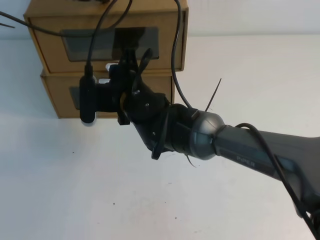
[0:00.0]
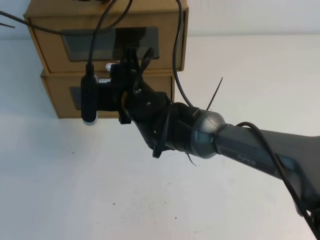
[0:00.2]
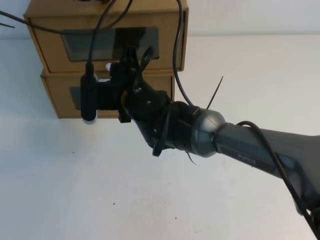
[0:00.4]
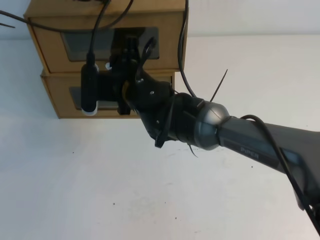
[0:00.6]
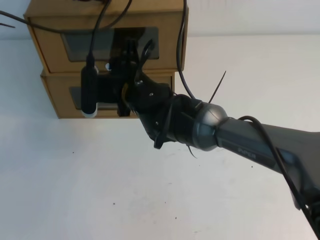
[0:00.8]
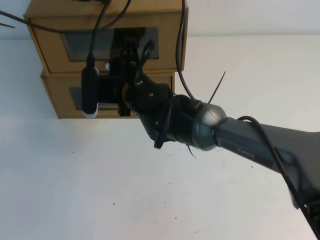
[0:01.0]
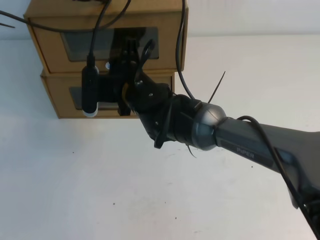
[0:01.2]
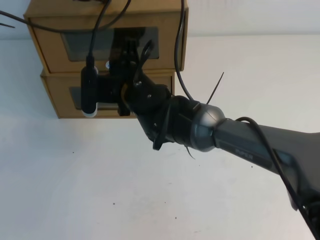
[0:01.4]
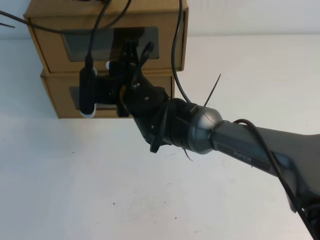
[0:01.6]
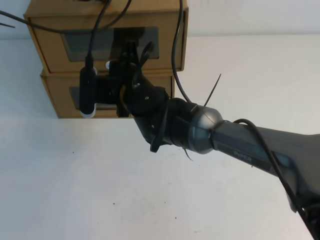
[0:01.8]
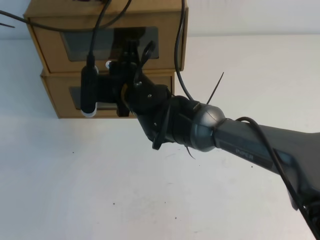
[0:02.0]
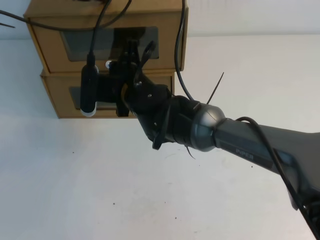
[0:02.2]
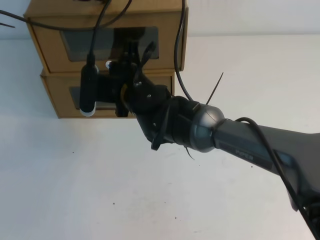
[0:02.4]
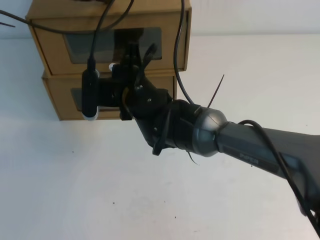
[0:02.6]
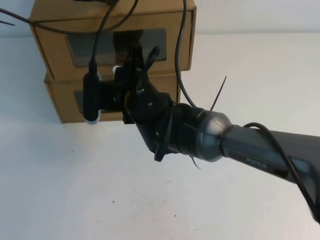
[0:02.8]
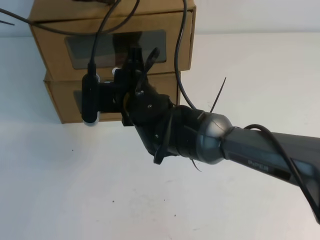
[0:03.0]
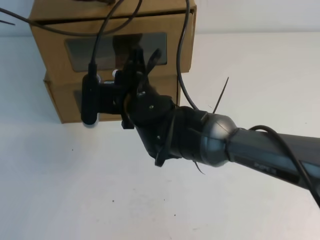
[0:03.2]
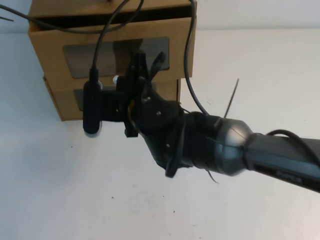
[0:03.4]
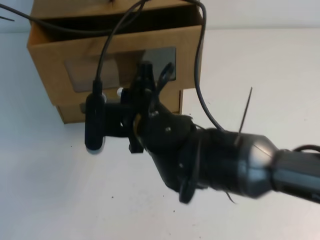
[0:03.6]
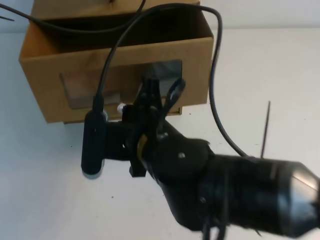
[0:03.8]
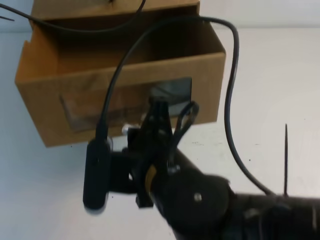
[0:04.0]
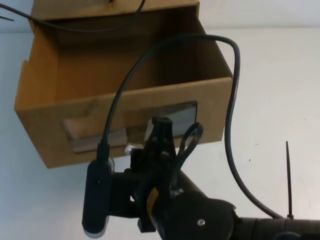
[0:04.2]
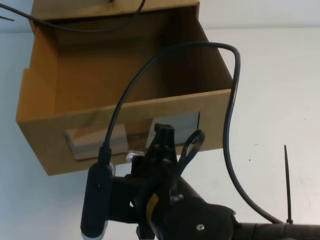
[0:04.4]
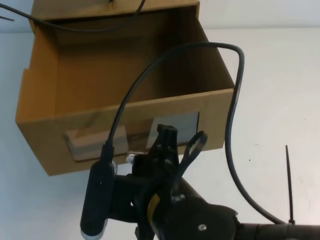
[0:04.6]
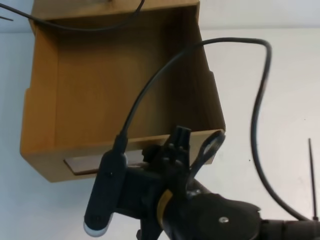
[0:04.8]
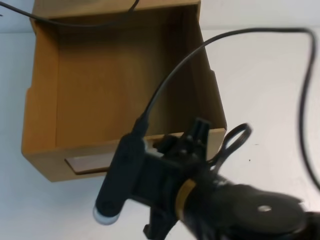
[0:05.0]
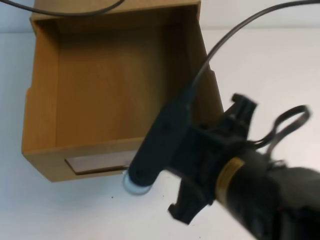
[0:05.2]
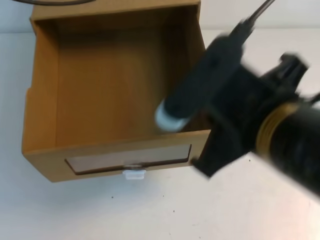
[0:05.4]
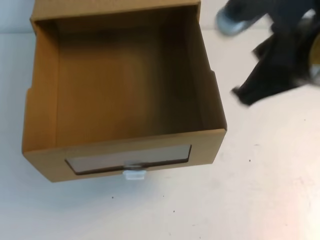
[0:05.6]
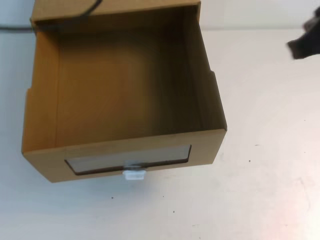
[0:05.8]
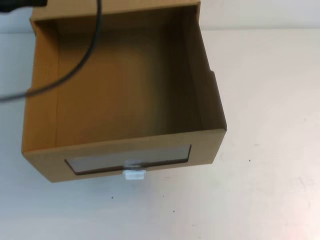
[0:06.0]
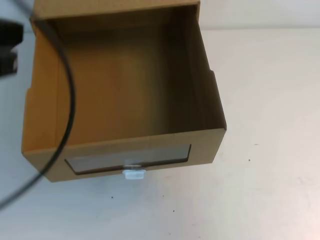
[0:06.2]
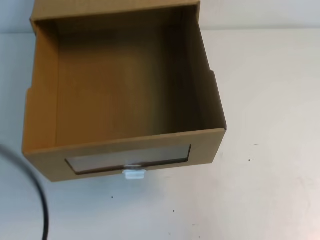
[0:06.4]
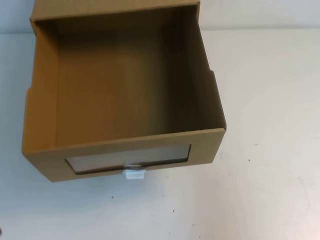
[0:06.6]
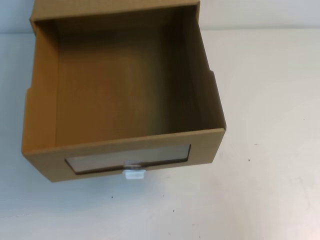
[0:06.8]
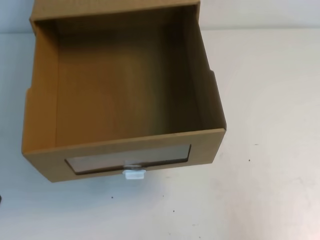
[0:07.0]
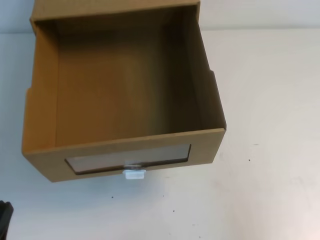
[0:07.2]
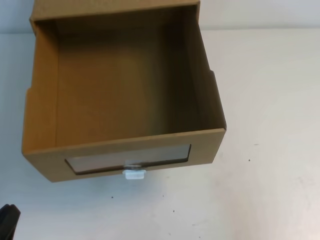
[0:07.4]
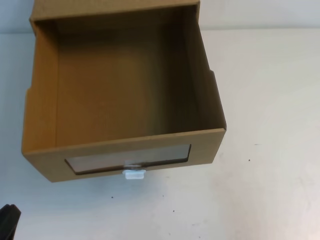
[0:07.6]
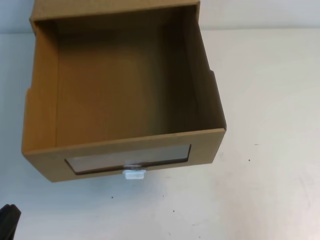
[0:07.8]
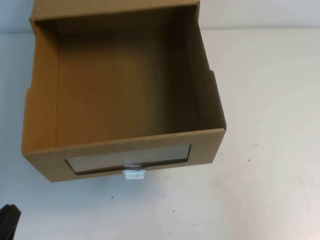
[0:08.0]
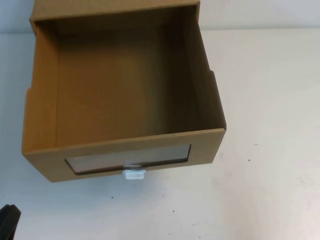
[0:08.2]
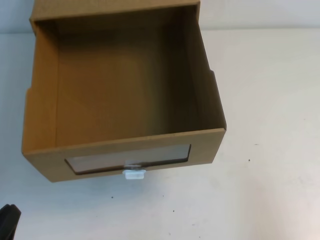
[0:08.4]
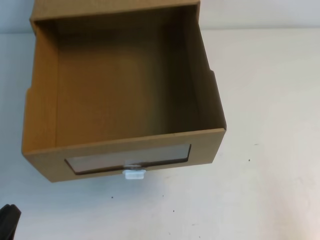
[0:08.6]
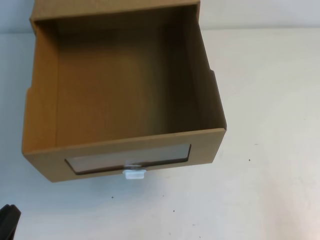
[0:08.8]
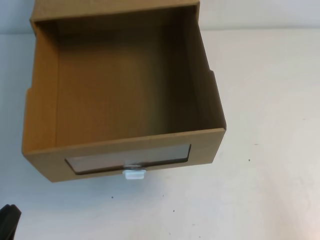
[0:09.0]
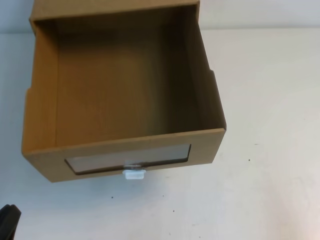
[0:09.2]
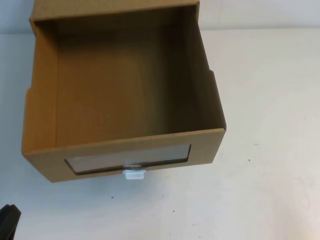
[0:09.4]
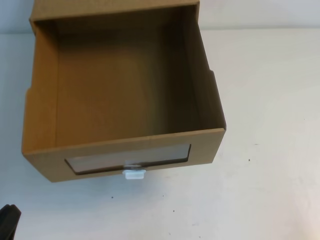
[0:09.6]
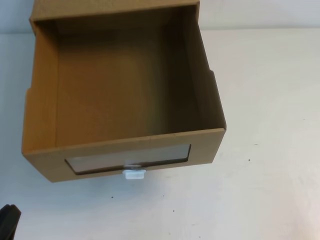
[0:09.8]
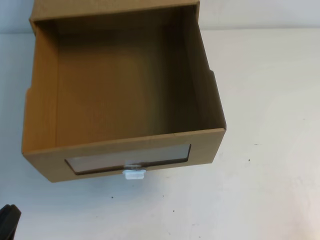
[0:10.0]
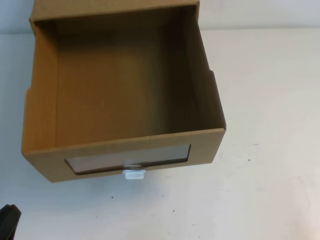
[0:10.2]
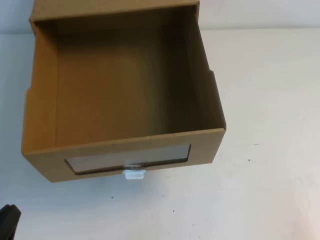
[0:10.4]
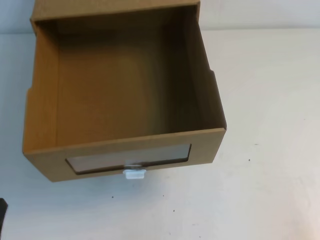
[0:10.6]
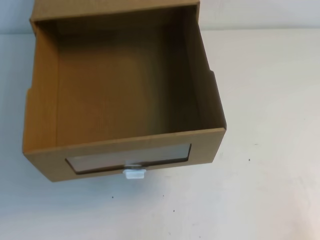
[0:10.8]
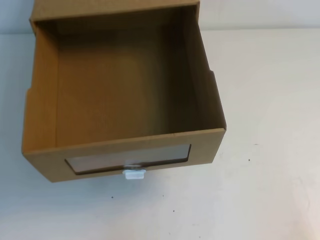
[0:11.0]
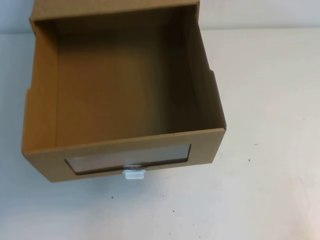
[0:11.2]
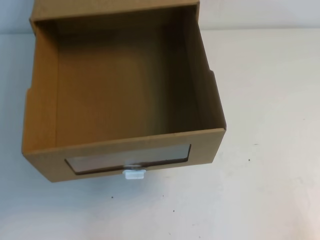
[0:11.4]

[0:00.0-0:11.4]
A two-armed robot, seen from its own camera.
Task of the whole recording: open the shoebox on the table.
Step, 0:00.0 to 0:11.4: Open the shoe box.
0:00.0 to 0:01.4: The right gripper closes up.
0:01.4 to 0:02.8: The grippers make only small movements.
0:02.8 to 0:04.2: The right gripper is displaced backward by some 20 cm.
0:04.2 to 0:05.6: The right gripper is displaced to the right and upward by about 20 cm, and opens, then closes once more, while the left gripper is displaced backward and upward by some 15 cm.
0:05.6 to 0:07.2: The right gripper moves to the right, downward and backward, about 20 cm. Meanwhile the left gripper travels downward and backward by some 40 cm.
0:07.2 to 0:08.6: The right gripper shifts some 10 cm downward.

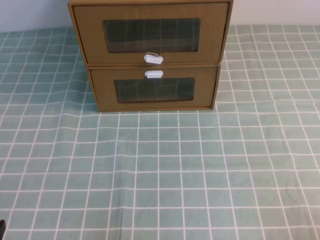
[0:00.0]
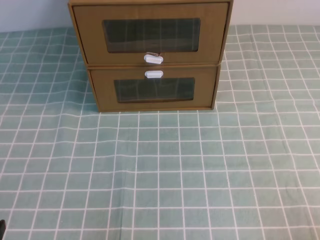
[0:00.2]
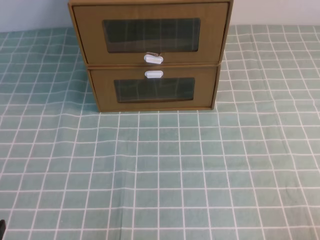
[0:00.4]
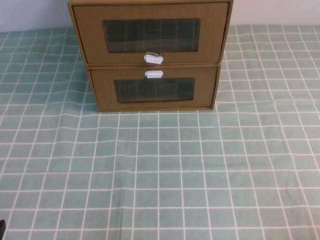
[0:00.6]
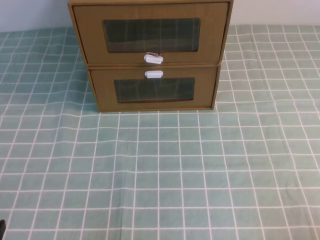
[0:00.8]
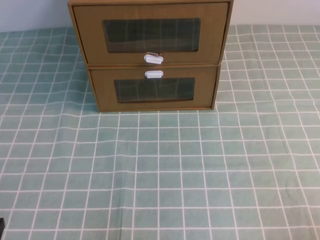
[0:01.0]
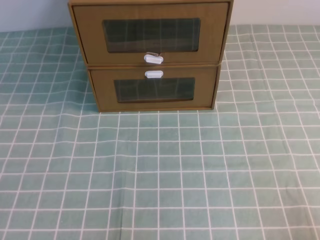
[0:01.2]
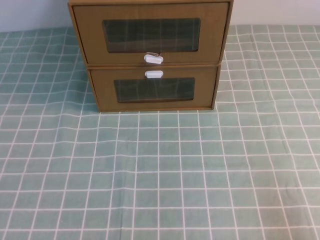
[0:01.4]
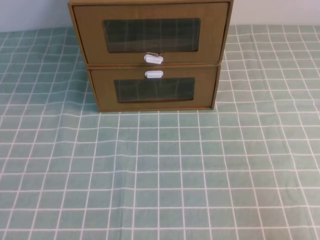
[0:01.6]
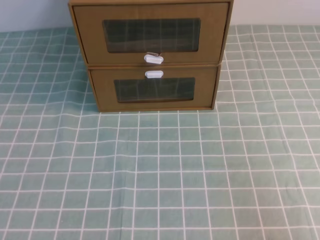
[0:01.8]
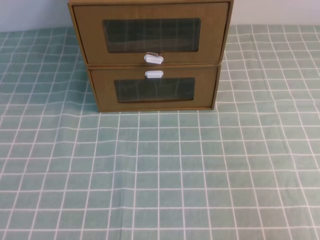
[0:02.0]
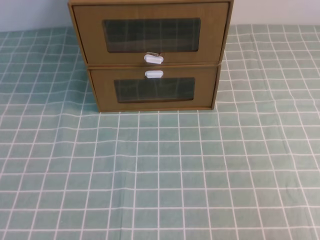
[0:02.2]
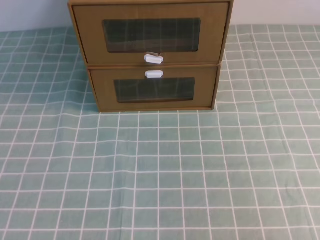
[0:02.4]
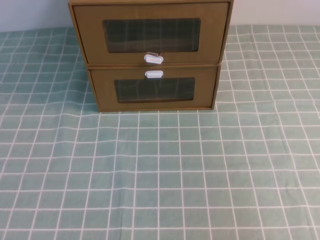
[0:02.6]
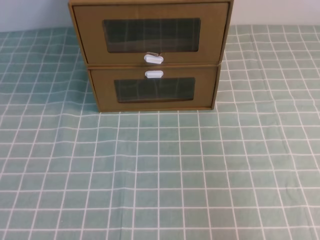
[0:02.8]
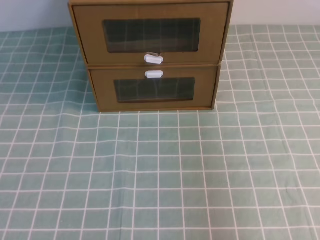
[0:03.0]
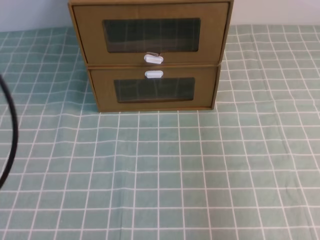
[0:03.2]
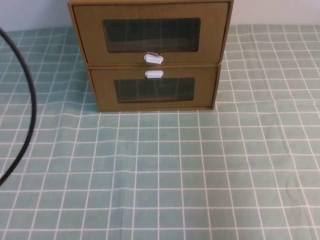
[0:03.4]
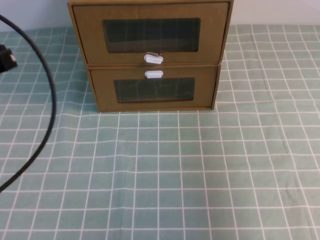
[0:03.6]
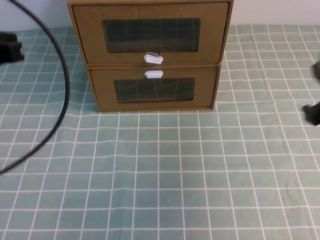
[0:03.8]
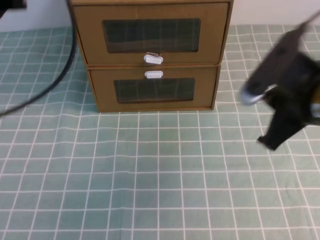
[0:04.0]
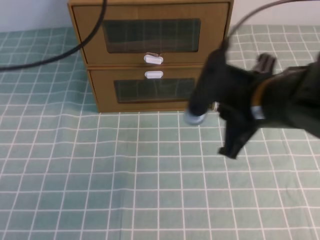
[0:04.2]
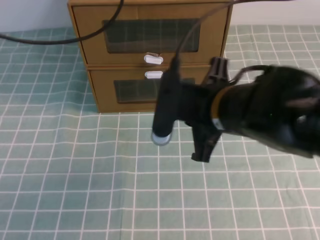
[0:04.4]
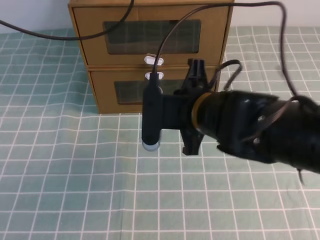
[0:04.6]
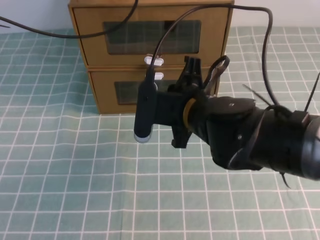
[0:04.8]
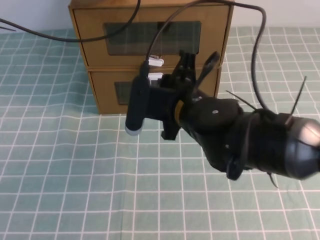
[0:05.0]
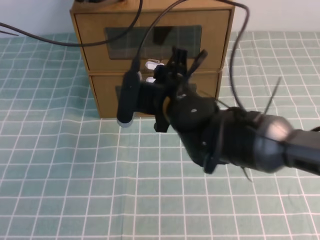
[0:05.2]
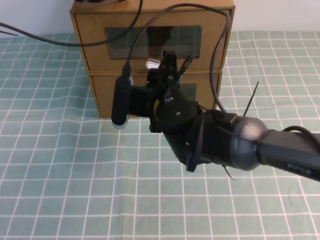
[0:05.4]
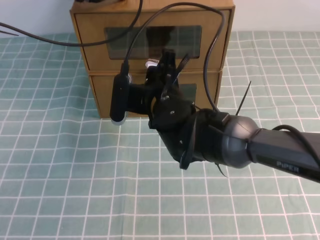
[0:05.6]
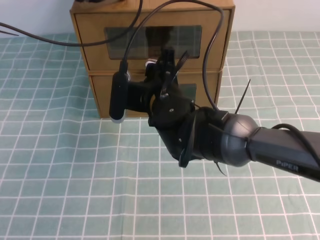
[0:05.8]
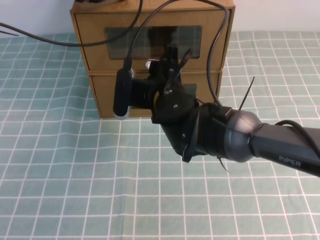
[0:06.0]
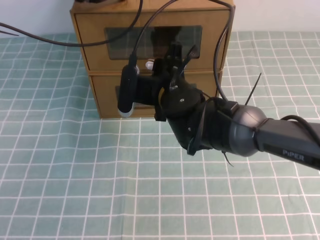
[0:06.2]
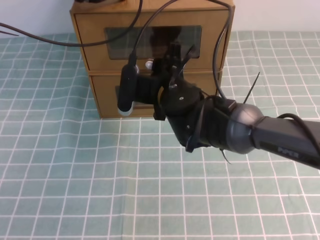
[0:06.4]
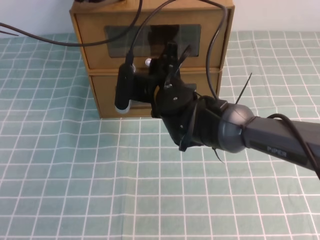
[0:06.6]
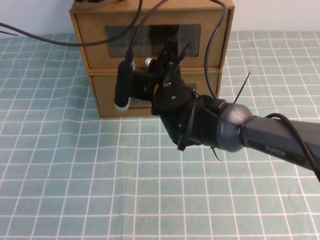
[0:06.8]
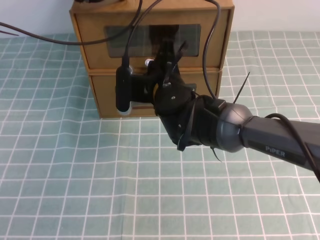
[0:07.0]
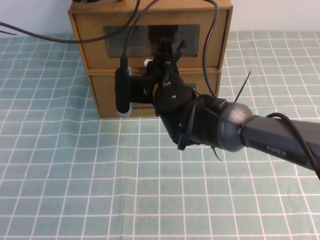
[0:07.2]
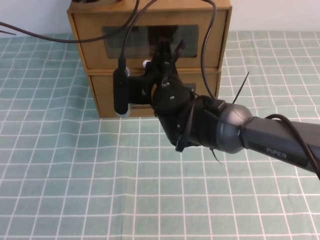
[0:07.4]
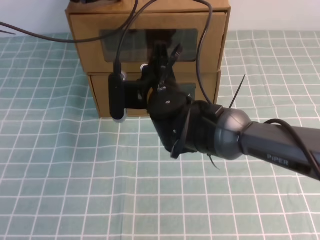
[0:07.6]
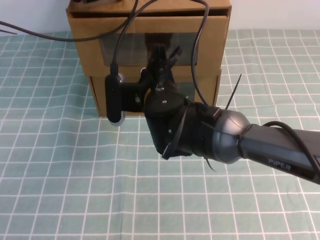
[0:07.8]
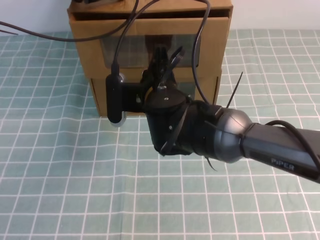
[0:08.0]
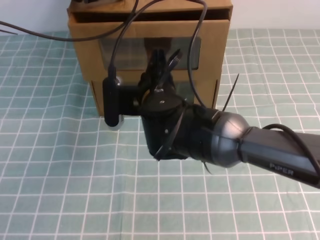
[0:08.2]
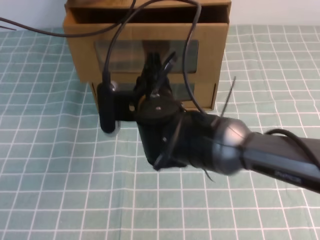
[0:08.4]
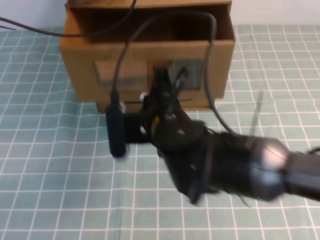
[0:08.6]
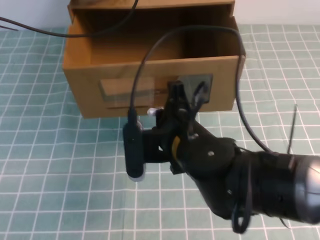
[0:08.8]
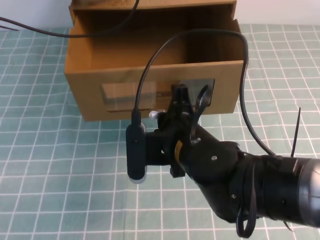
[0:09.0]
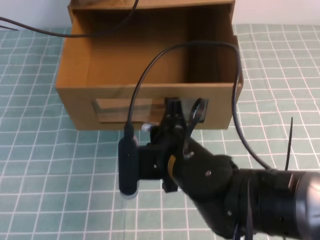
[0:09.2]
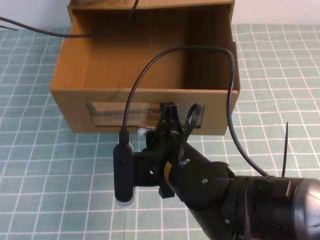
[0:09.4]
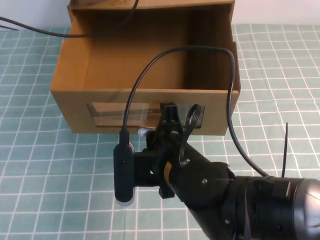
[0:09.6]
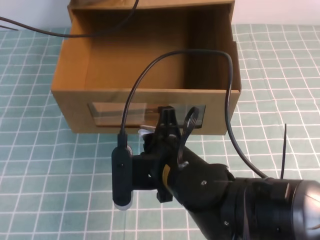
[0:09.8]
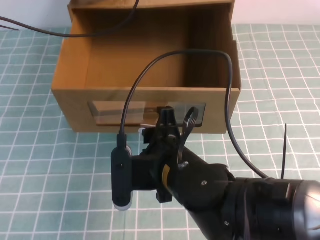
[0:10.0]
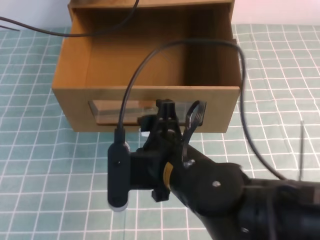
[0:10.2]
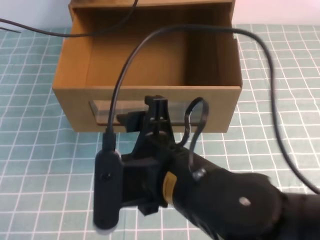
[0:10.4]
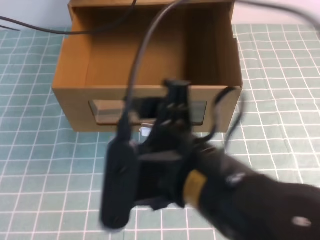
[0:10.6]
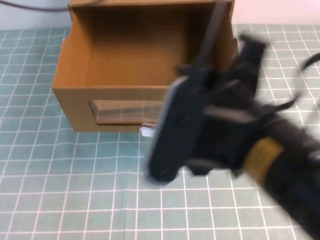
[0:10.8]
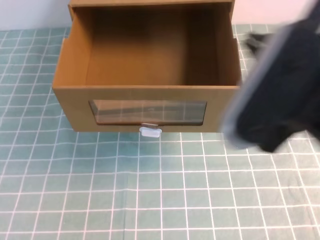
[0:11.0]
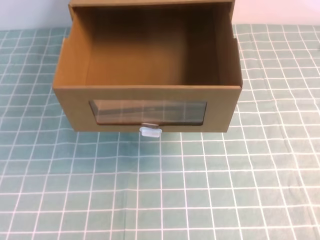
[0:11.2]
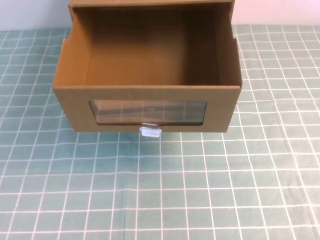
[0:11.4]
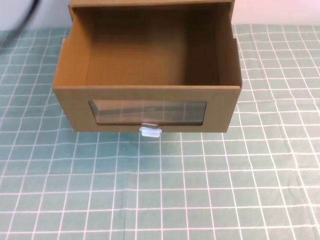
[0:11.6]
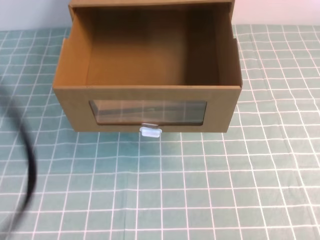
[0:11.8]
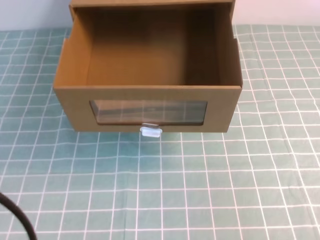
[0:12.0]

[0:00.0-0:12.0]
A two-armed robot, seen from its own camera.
Task of the whole recording: open the shoebox on the cyan tablecloth.
0:03.0 to 0:04.4: The left gripper moves forward, approximately 30 cm; the right gripper heads to the left, forward and downward, covering approximately 30 cm.
0:04.4 to 0:06.0: The right gripper heads forward, to the left and downward, covering approximately 15 cm, and opens its fingers; the left gripper travels forward and downward by about 10 cm.
0:06.0 to 0:07.6: The right gripper closes up.
0:07.6 to 0:09.0: The right gripper moves backward, about 10 cm.
0:09.0 to 0:10.4: The right gripper moves backward and upward, roughly 10 cm, and opens up.
0:10.4 to 0:12.0: The right gripper shifts roughly 30 cm to the right, and closes its fingers; the left gripper goes roughly 40 cm backward.
